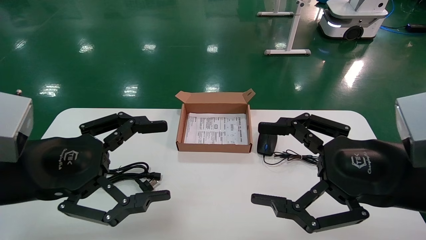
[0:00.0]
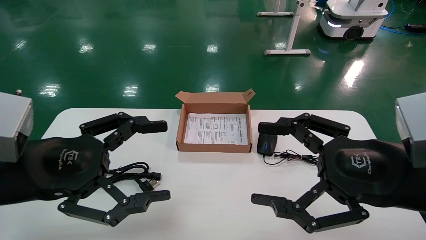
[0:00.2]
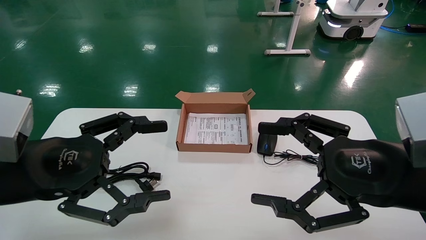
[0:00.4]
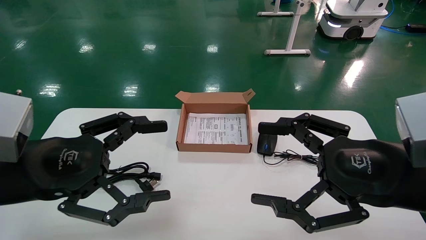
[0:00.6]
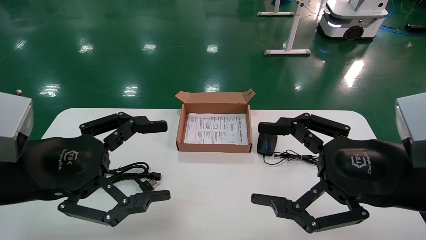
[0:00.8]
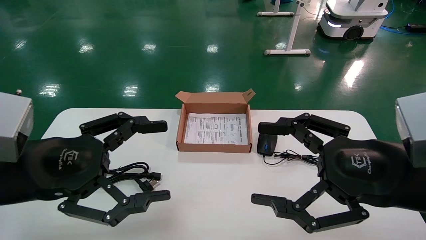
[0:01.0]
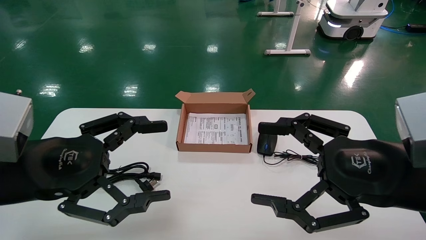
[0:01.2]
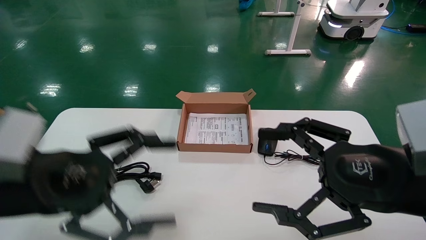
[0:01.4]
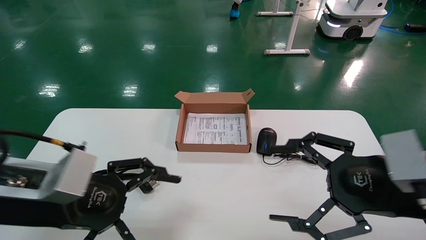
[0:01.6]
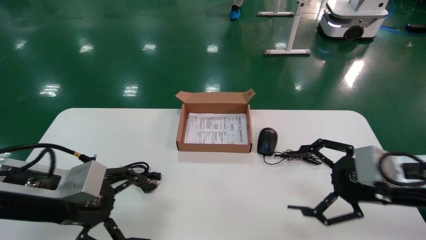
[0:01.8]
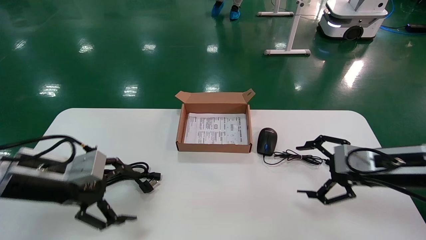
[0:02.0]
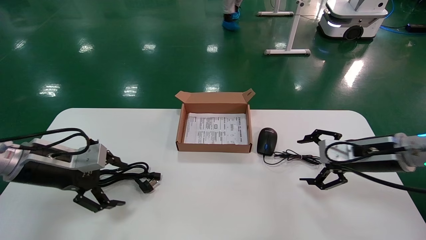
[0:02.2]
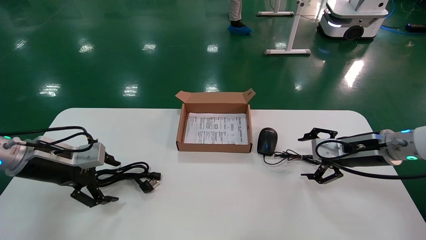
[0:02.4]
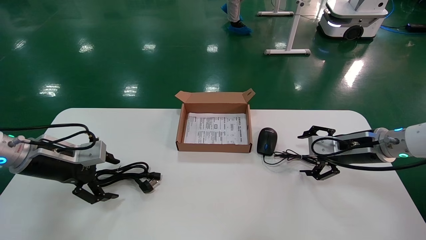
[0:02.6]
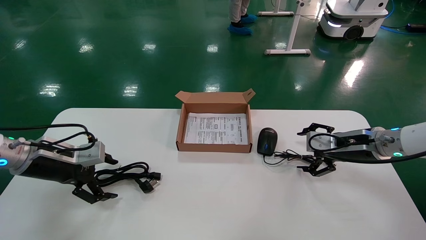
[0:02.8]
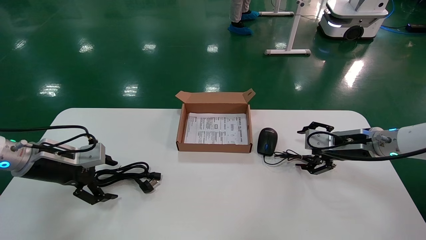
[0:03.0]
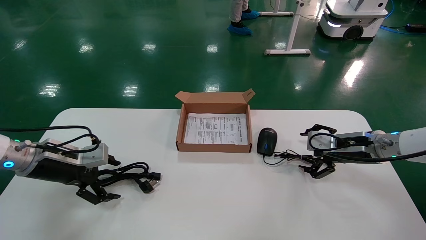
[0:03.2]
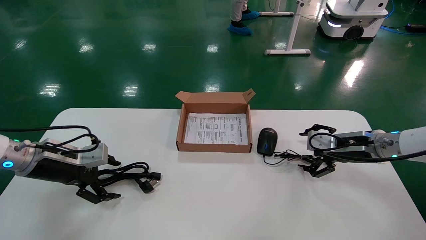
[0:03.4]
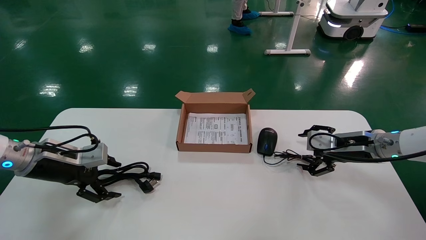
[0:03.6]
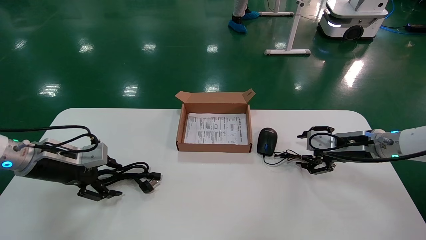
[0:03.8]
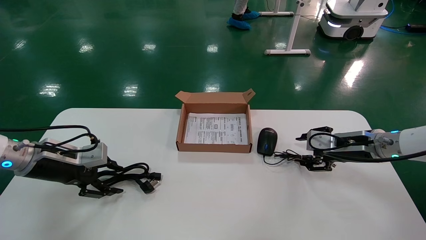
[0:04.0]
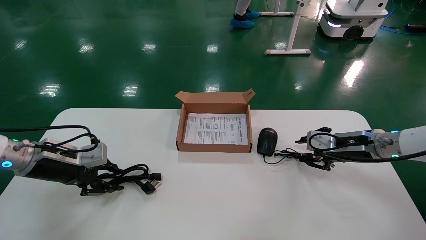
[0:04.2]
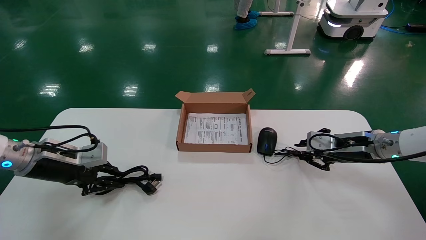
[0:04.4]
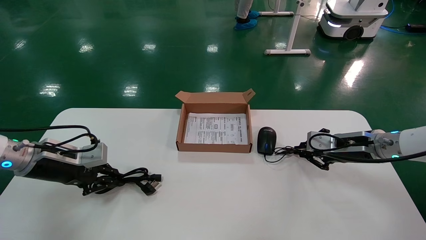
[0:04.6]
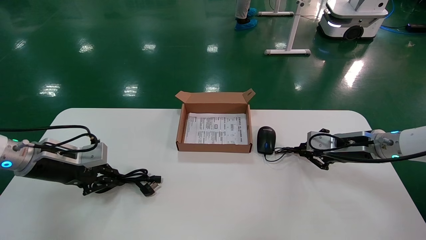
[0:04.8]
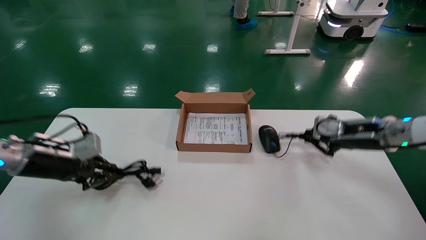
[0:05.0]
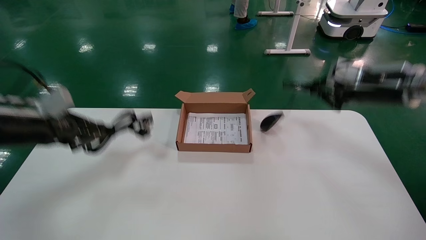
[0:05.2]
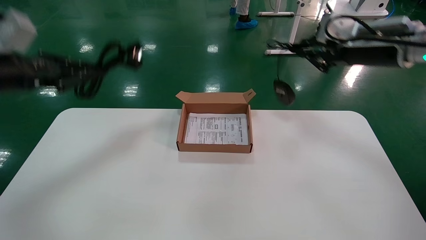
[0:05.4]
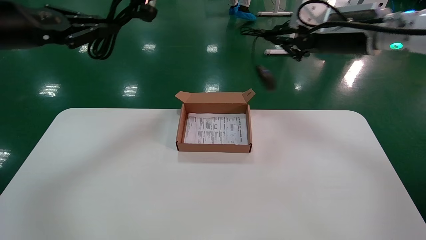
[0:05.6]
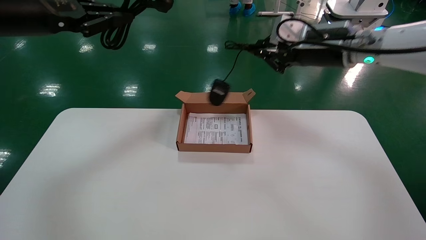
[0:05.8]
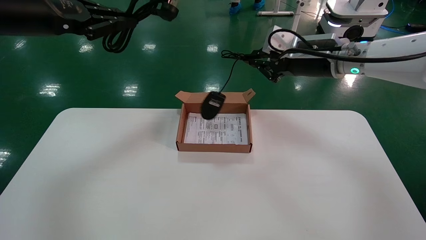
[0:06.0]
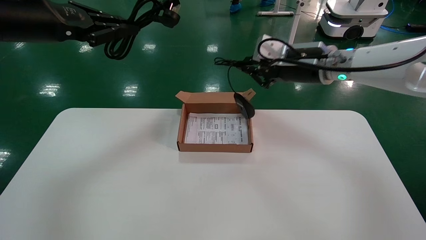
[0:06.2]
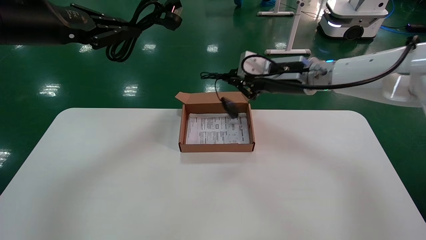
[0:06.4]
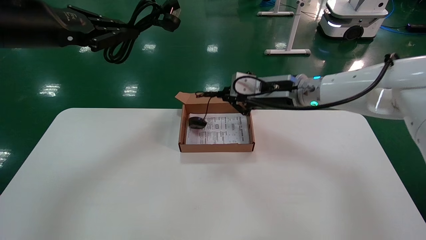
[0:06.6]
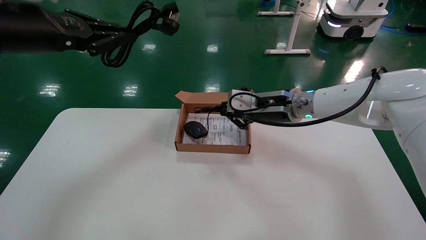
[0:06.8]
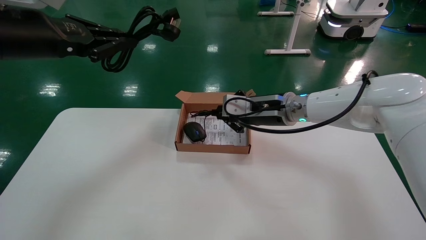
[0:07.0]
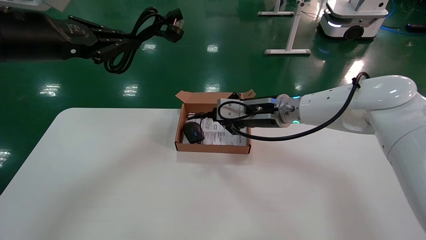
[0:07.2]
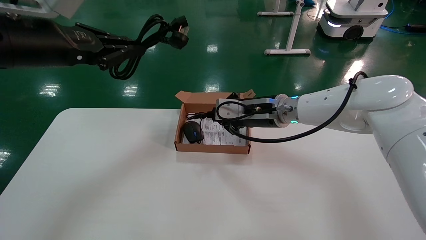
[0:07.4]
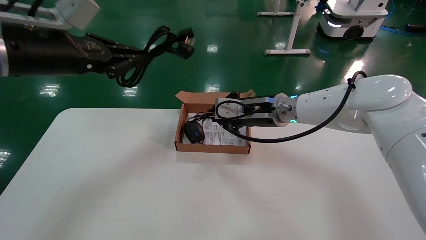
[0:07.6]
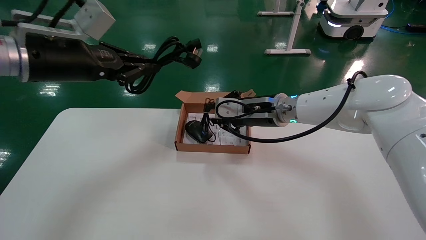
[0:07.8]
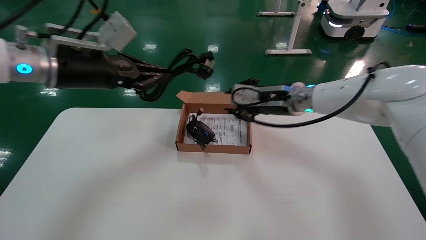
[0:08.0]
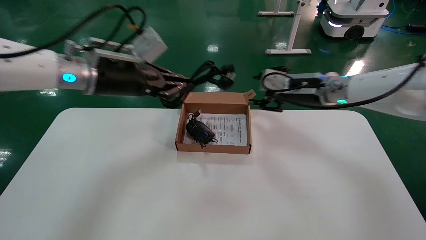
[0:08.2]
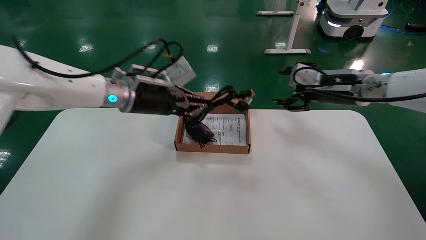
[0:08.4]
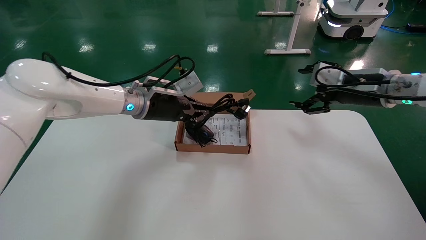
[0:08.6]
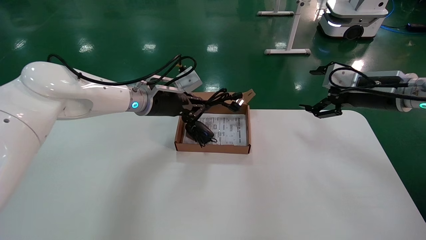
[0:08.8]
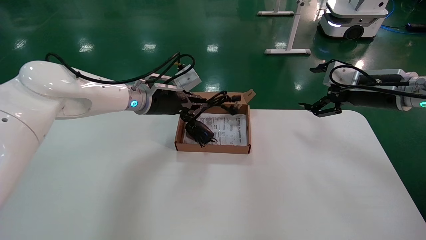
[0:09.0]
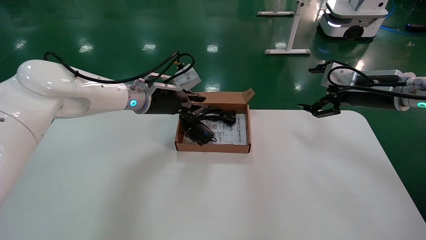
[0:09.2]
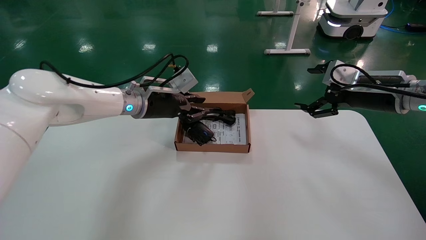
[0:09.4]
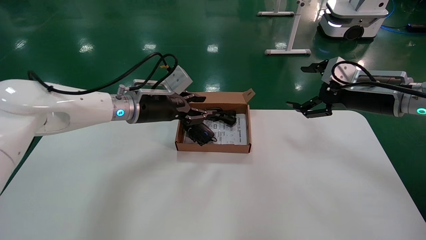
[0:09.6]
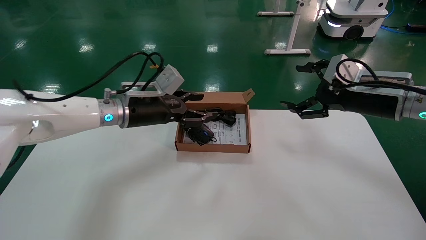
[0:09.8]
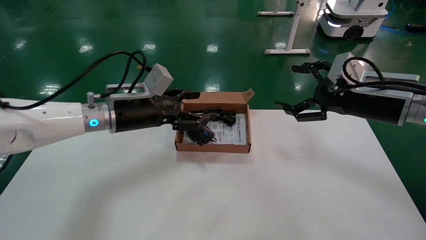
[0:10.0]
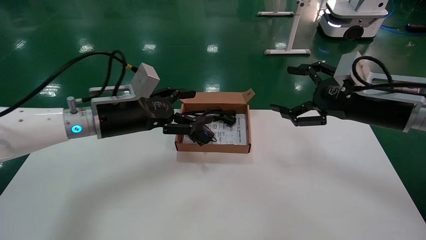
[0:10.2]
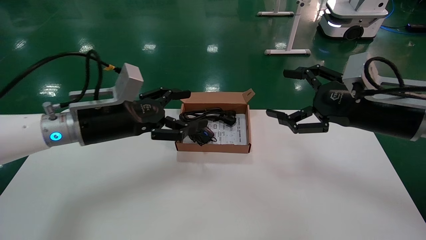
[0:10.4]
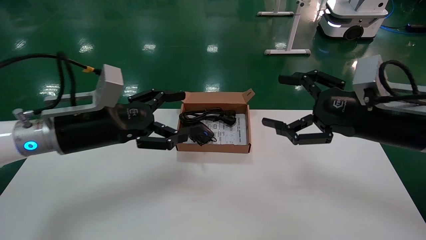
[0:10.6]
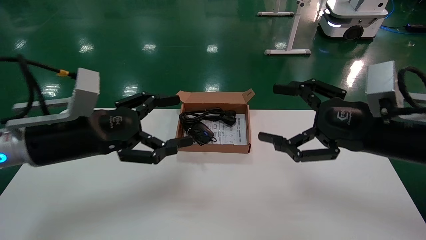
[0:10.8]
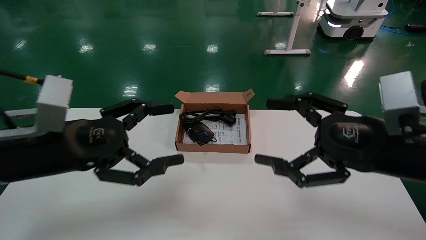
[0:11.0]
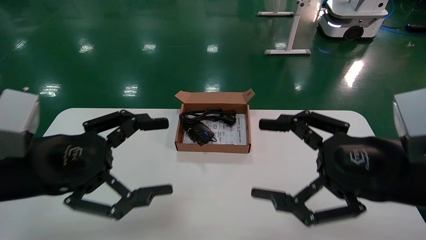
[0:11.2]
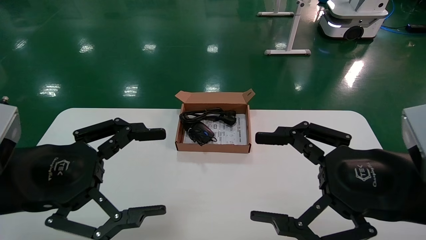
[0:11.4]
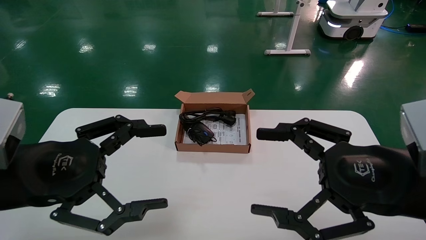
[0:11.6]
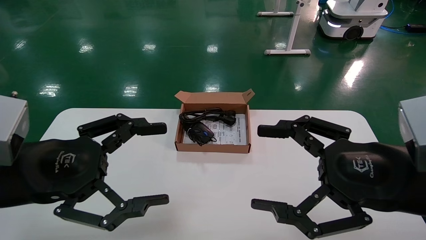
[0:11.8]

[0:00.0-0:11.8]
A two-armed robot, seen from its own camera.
Step, 0:01.6 to 0:04.8: Grab and lift both the mouse and power cord from the accessory packaging area at the same time.
Step, 0:05.0 to 0:09.4: Place the mouse and power cord into the box.
0:00.0 to 0:01.4: There are only small adjustments of the grippers.
0:01.4 to 0:03.0: The right gripper shifts about 20 cm forward; the left gripper travels forward, to the left and downward by roughly 20 cm.
0:03.0 to 0:04.4: The left gripper closes its fingers. Meanwhile the right gripper closes.
0:04.4 to 0:06.0: The right gripper moves upward and to the left, approximately 20 cm; the left gripper is displaced upward by some 25 cm.
0:06.0 to 0:07.4: The right gripper shifts approximately 15 cm downward and to the left, while the left gripper ends up some 5 cm from where it was.
0:07.4 to 0:08.8: The left gripper shifts about 25 cm forward, to the right and downward. The right gripper travels to the right by about 20 cm, and opens.
0:08.8 to 0:10.4: The right gripper heads backward, covering about 10 cm. The left gripper moves backward and to the left, about 15 cm, and opens its fingers.
0:10.4 to 0:11.8: Both grippers travel together backward, some 15 cm.

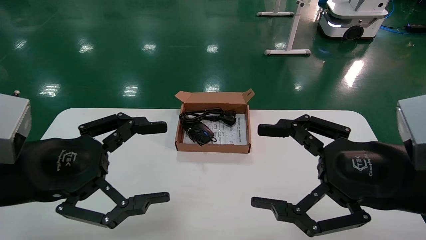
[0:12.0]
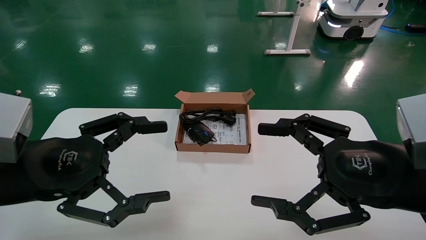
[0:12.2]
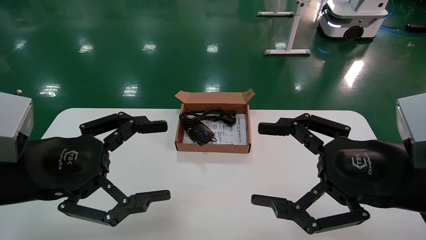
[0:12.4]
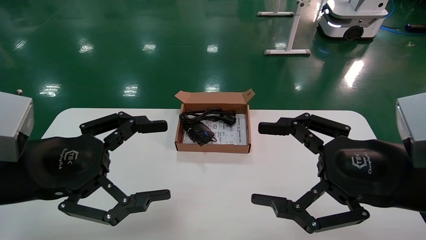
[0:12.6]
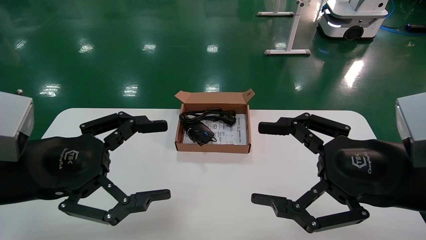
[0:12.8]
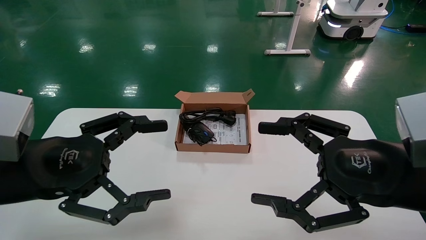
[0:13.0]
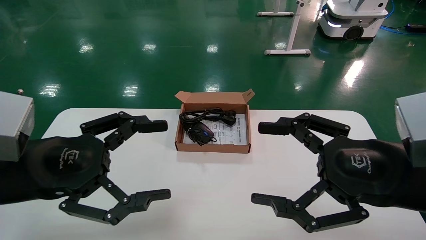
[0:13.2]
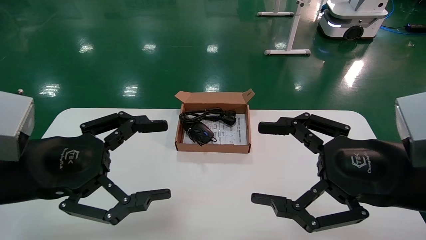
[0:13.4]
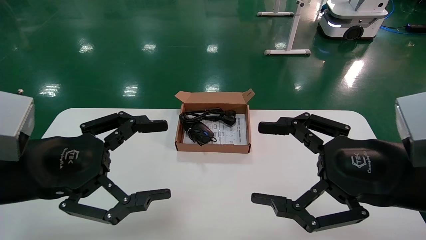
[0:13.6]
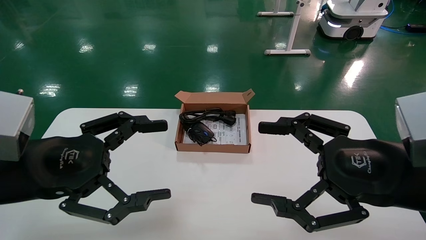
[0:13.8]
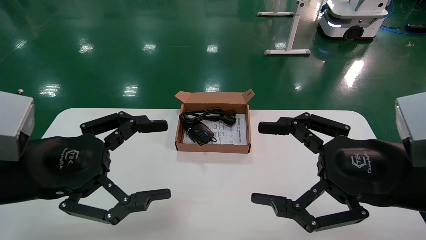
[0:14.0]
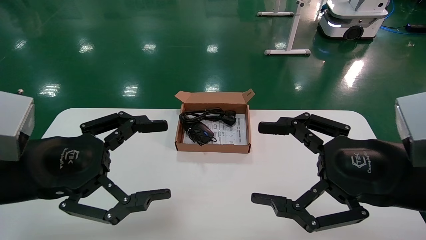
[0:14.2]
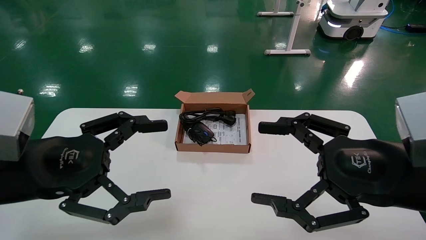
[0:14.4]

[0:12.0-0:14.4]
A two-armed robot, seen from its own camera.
0:12.0 to 0:14.4: The two grippers keep their place.
